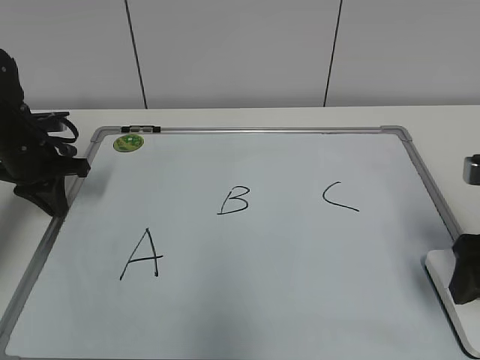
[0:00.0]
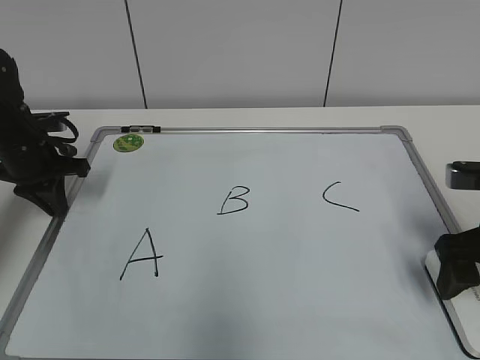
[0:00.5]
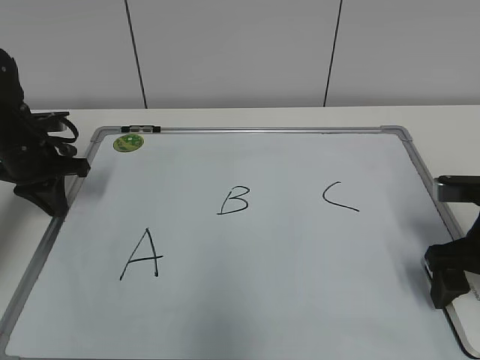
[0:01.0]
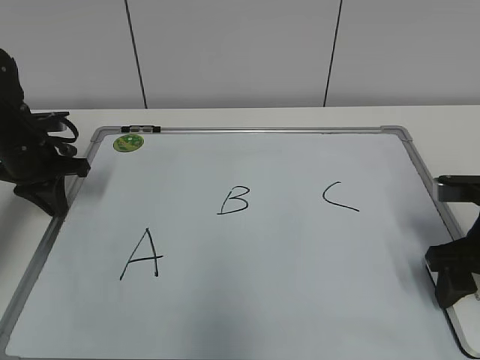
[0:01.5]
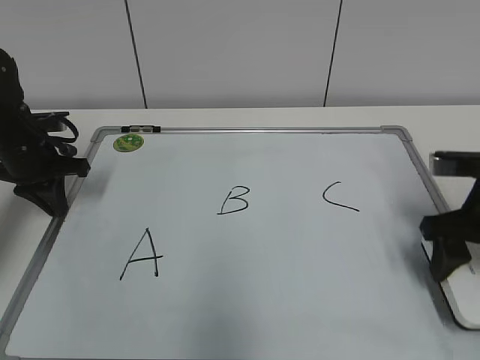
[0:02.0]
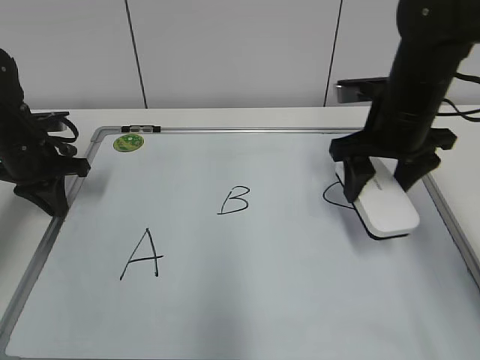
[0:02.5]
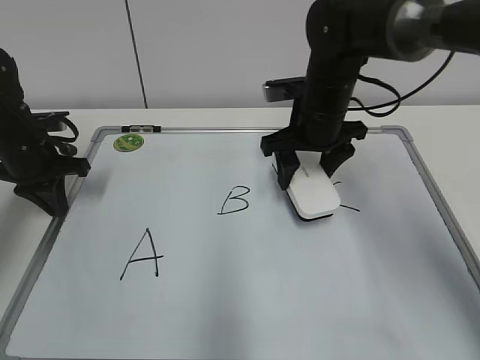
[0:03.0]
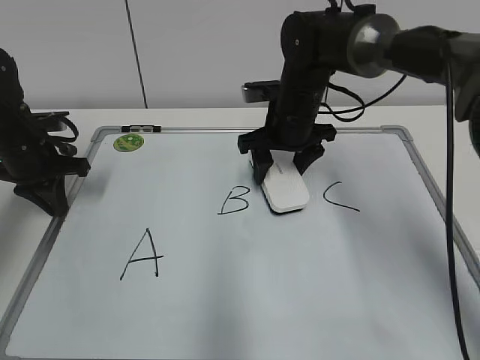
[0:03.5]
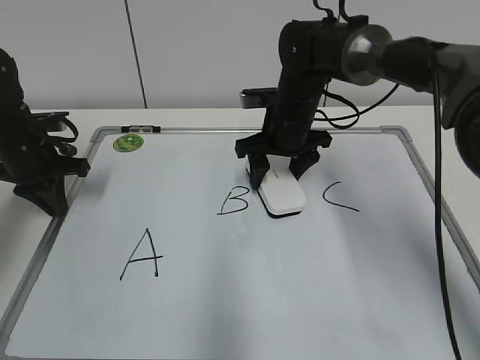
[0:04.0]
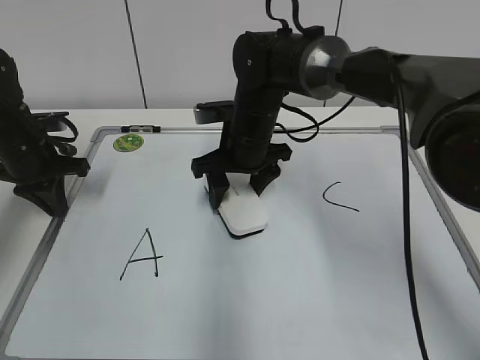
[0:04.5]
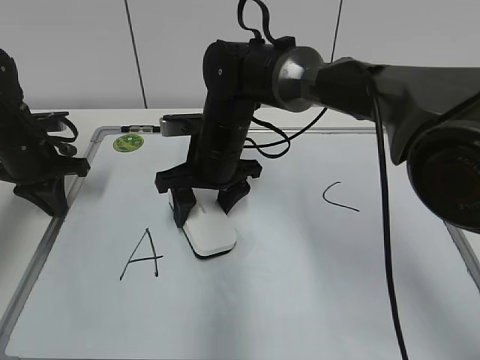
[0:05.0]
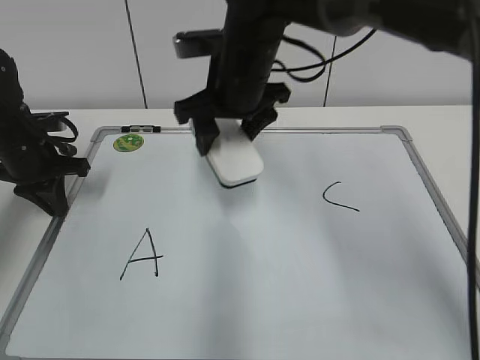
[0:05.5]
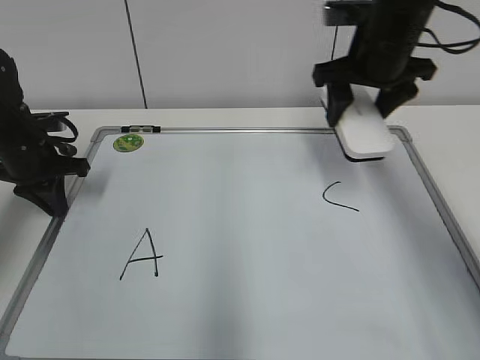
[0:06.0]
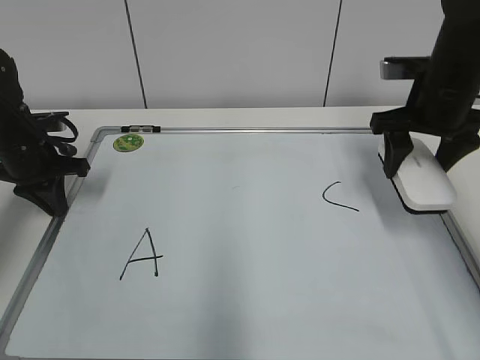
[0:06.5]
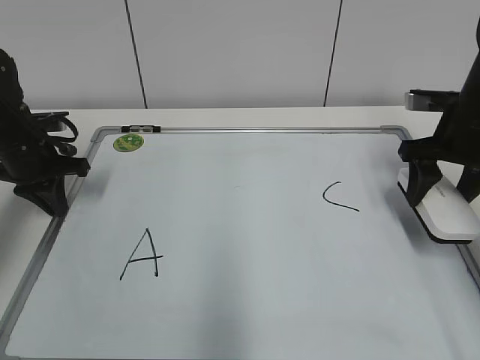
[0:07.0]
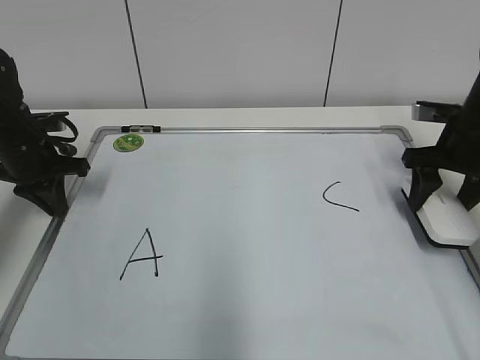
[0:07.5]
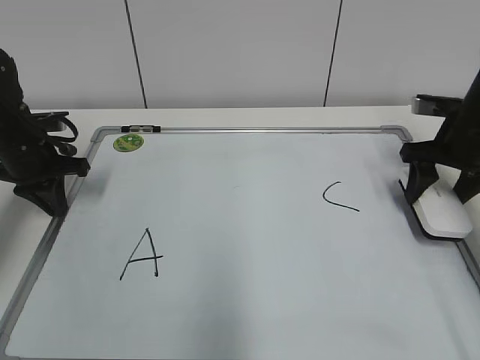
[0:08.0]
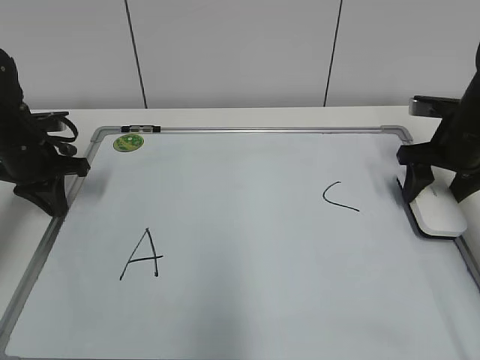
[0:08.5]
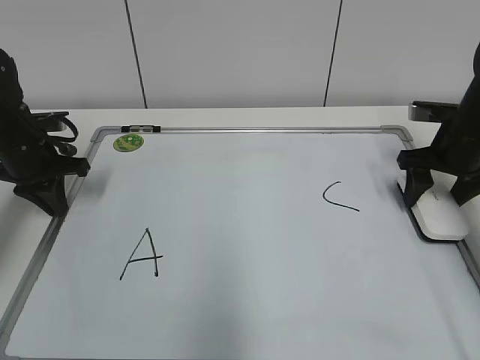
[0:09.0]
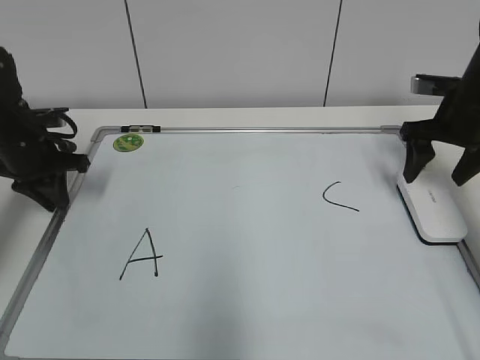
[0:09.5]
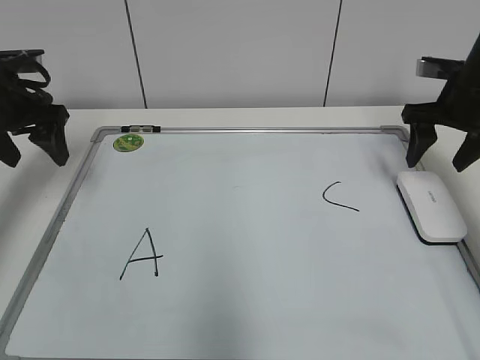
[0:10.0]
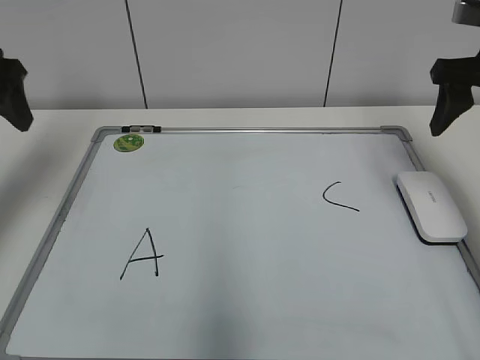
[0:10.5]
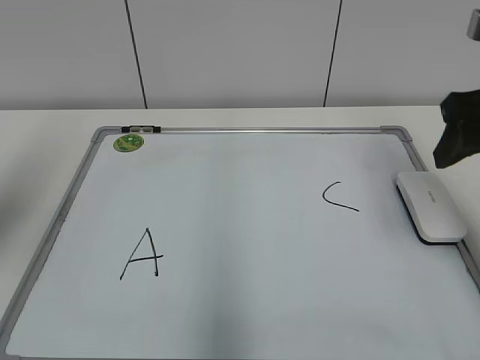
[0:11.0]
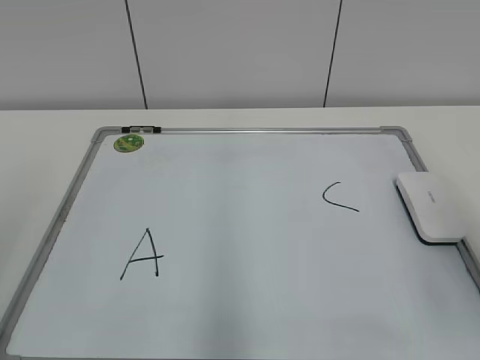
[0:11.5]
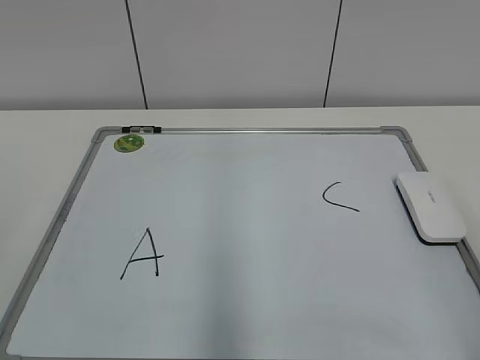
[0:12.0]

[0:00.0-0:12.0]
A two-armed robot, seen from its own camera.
Task of the whole recording: pick up the eraser on the blackboard and erase the letter "B".
Step, 0:02.0 to 0:05.0: Erase the letter B with your right hand.
0:00.0 to 0:02.0: The right gripper moves forward, roughly 5 cm, and closes.
0:02.0 to 0:04.0: The right gripper moves to the left and forward, some 25 cm.
0:04.0 to 0:06.0: The right gripper travels upward and to the right by about 15 cm.
0:06.0 to 0:08.0: The right gripper heads to the right and downward, covering about 15 cm.
0:08.0 to 0:10.0: The left gripper heads upward, covering about 10 cm, and opens. The right gripper opens.
0:10.0 to 0:12.0: Both grippers move backward, some 40 cm.

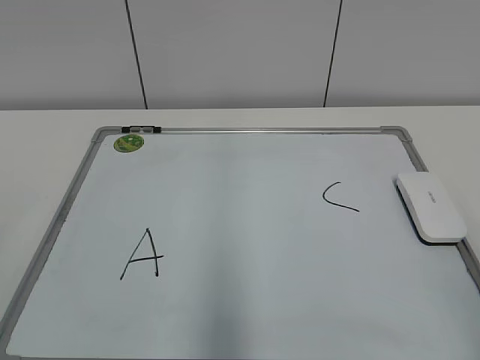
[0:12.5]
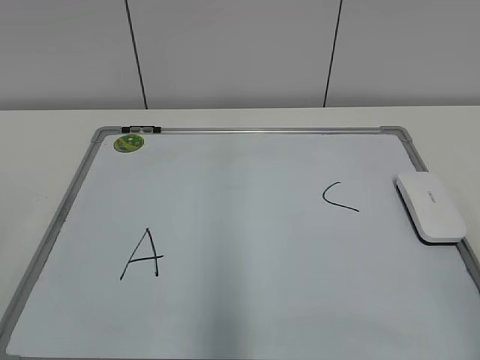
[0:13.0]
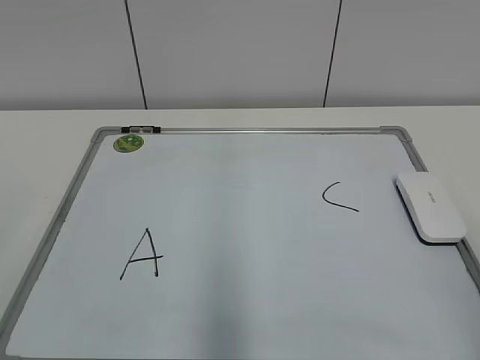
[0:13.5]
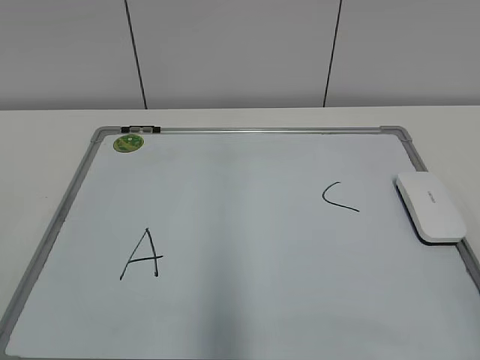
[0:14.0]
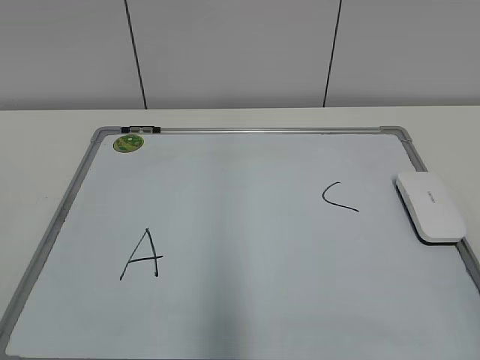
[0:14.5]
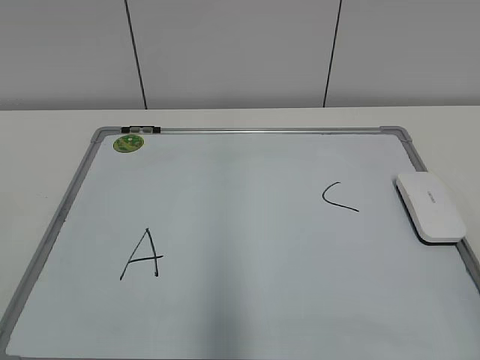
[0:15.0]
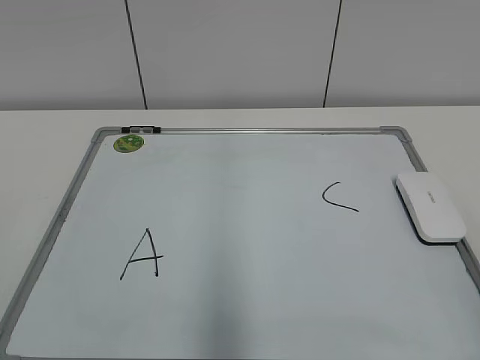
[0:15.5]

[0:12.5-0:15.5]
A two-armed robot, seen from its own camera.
Task of the whole recording: pick up the eraser on the blackboard and erase the letter "B".
0:14.0 to 0:15.5: Both grippers stay about where they are.

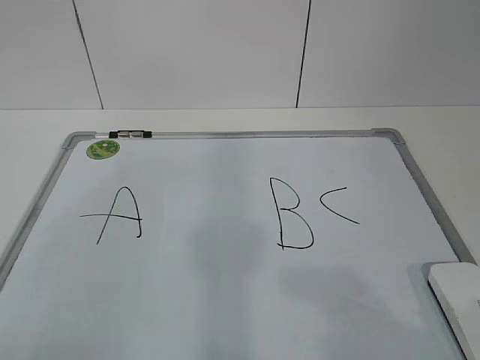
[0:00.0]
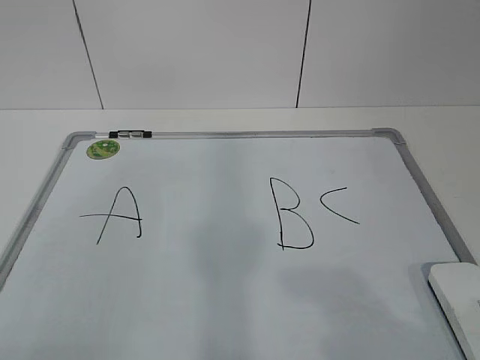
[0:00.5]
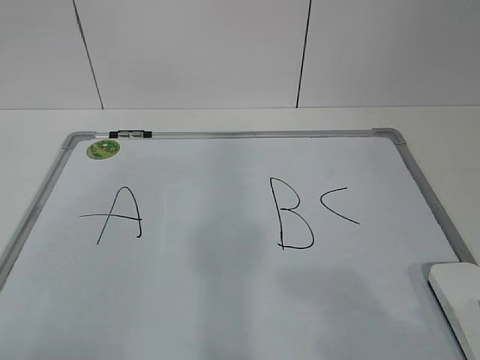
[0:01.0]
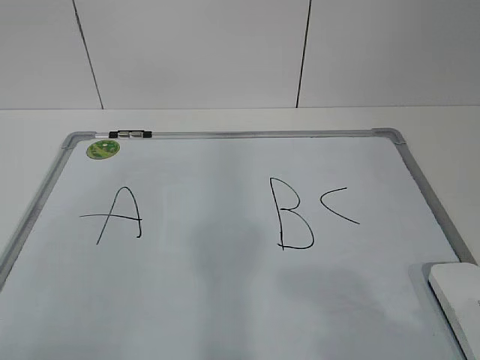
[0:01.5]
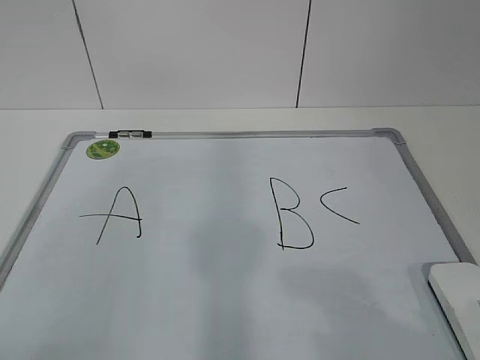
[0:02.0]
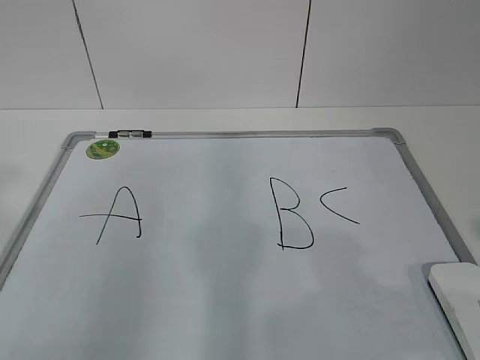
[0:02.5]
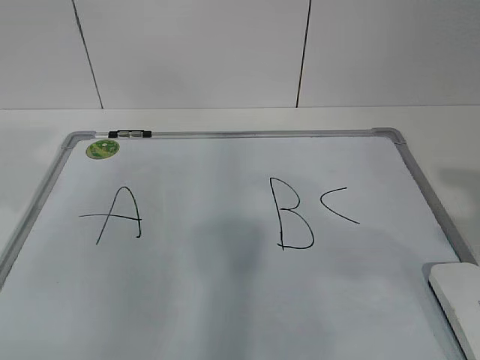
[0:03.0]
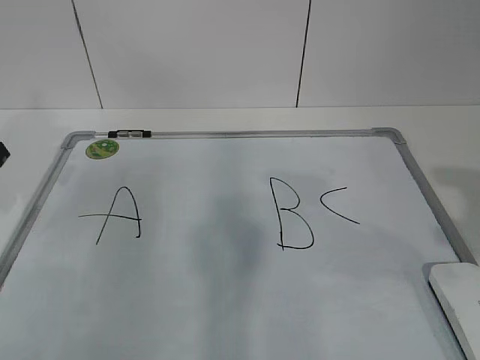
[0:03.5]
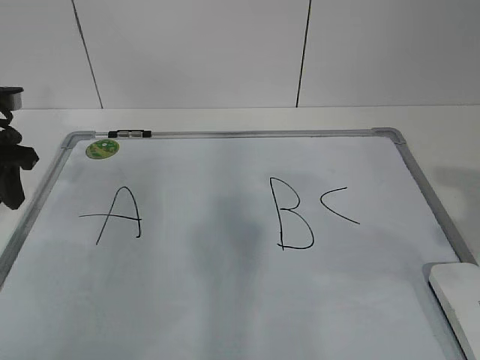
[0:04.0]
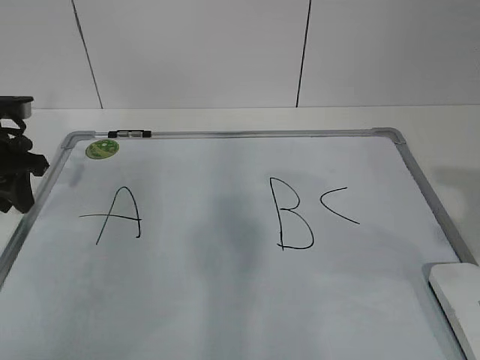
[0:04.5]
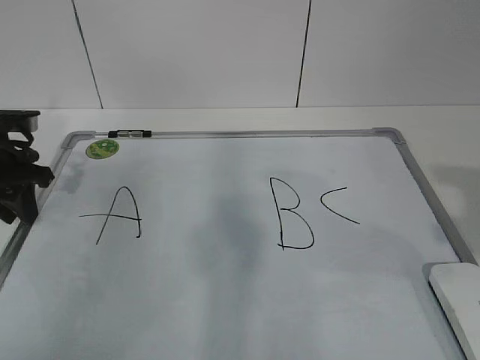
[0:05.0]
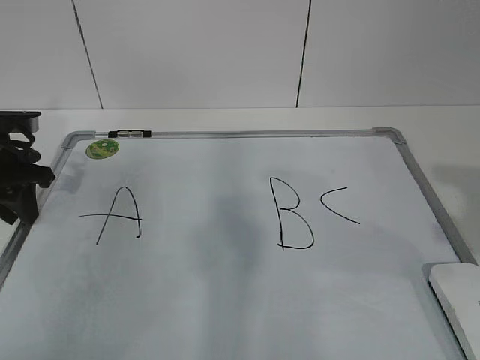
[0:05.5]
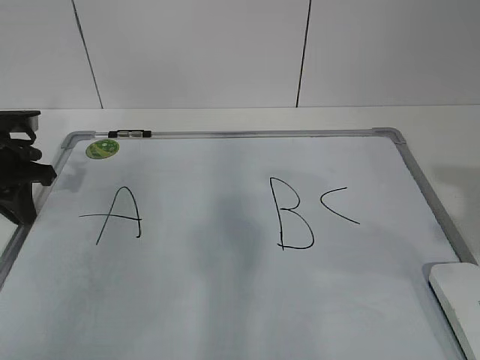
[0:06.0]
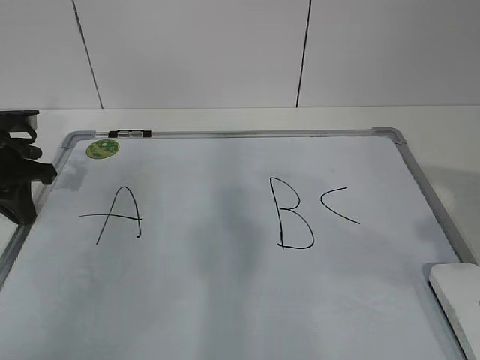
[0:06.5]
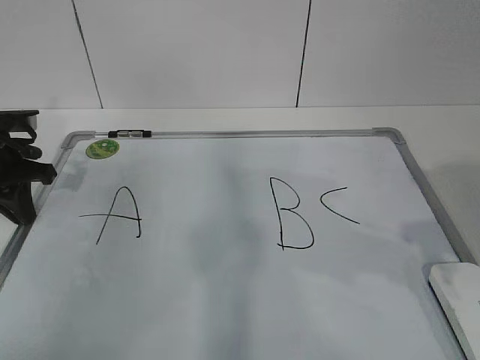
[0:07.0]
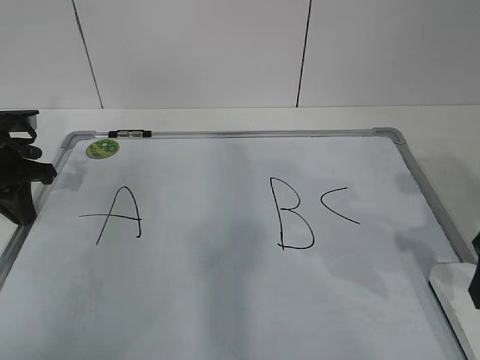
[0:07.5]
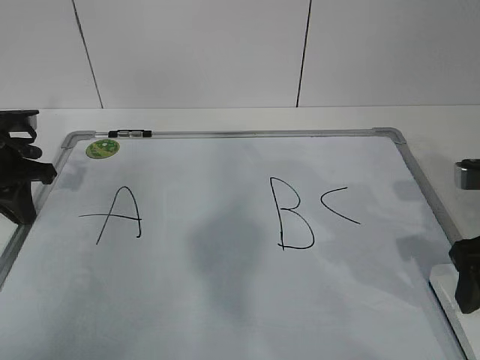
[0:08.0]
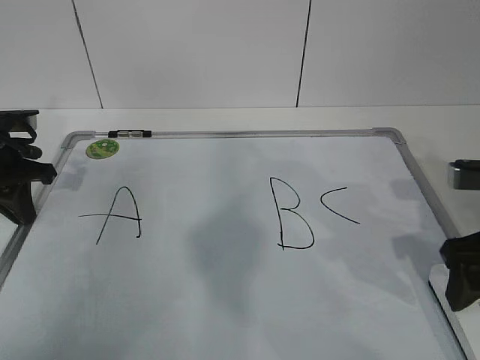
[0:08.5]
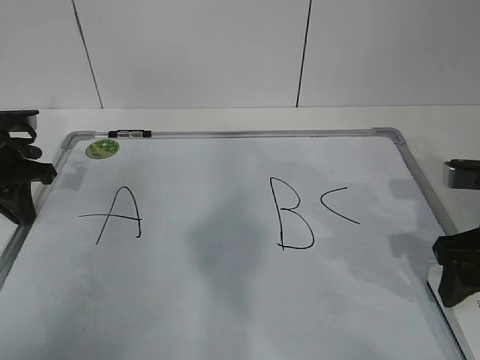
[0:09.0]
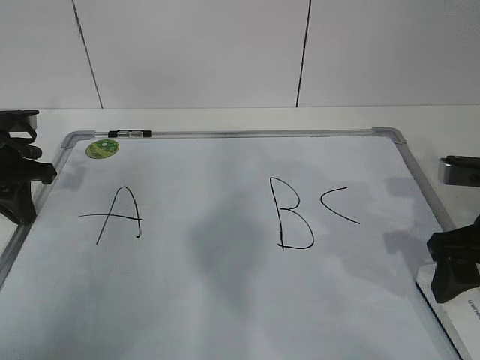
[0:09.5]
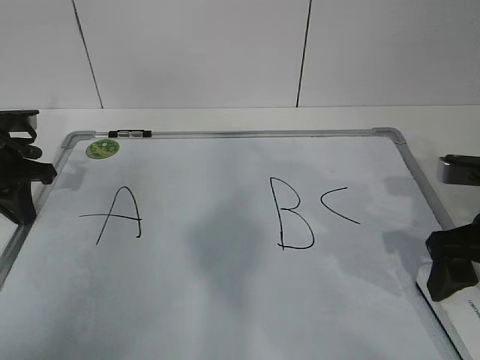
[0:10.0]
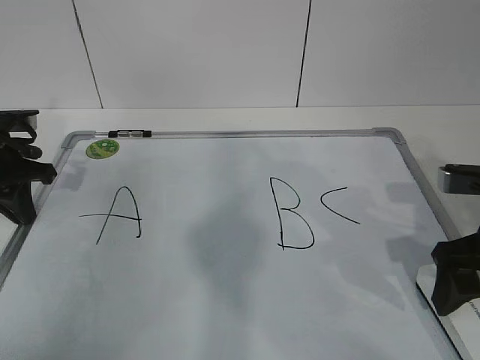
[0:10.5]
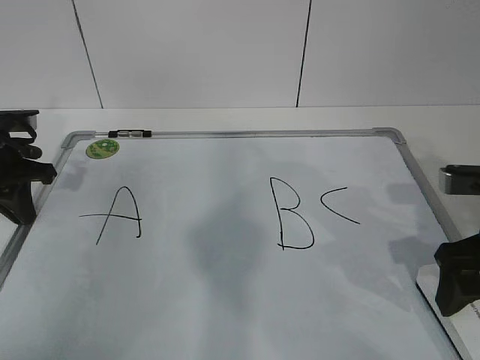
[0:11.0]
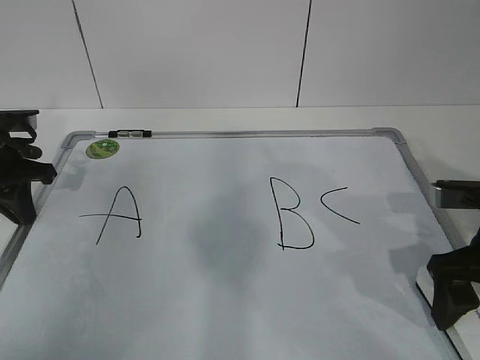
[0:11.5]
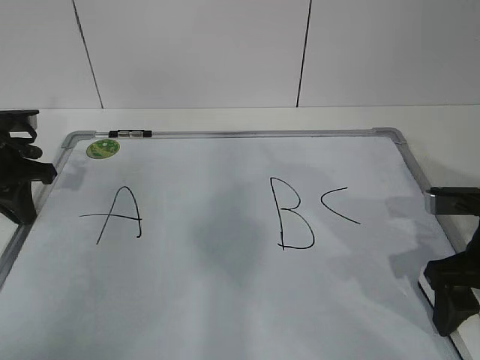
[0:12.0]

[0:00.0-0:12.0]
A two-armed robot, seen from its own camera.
Task of the whole recording: pick up the eraser on the blackboard and erase the letter "B".
Step, 0:00.0 to 0:04.5: Hold the drawing board steady with your left hand.
Step, 0:05.0 to 0:10.0: Grab the eraser with your right hand.
0:02.0 to 0:04.0: The left gripper goes approximately 35 cm forward, while the right gripper moves forward, approximately 10 cm.
0:04.0 to 0:06.0: The left gripper closes its fingers.
0:06.0 to 0:08.0: The right gripper shifts approximately 15 cm downward and forward.
0:08.0 to 0:12.0: The grippers move only a little.
